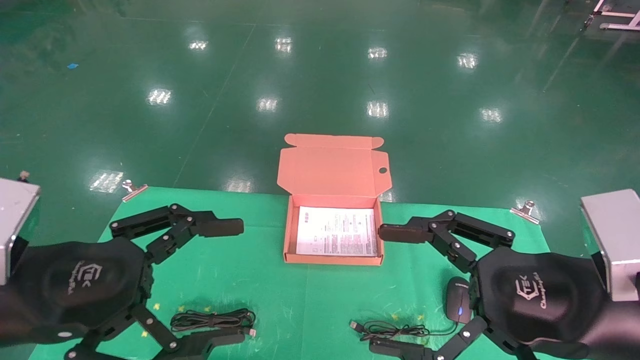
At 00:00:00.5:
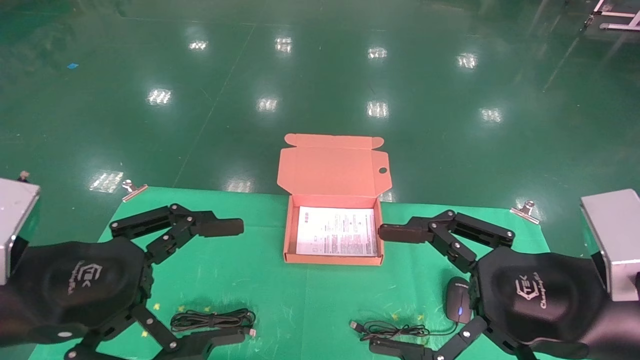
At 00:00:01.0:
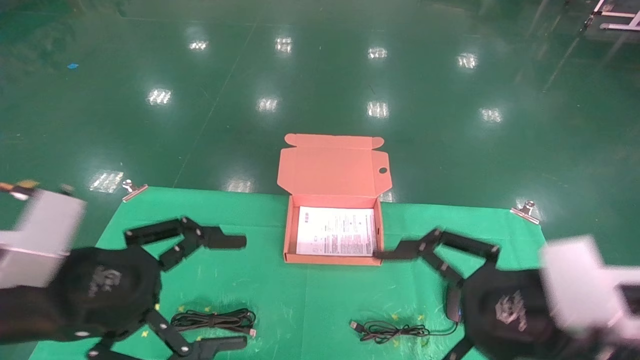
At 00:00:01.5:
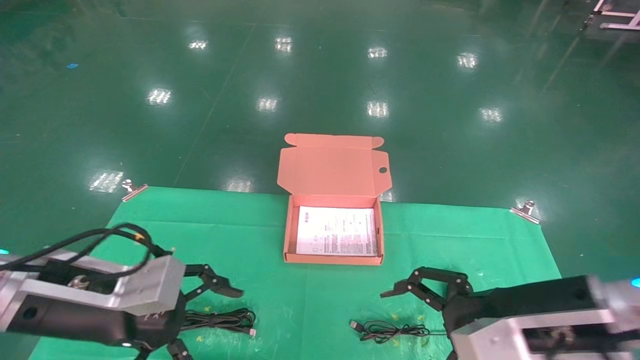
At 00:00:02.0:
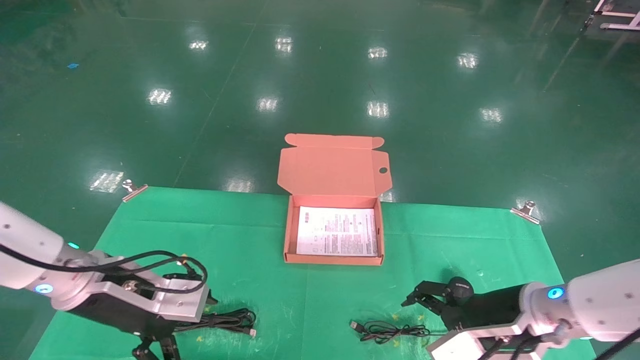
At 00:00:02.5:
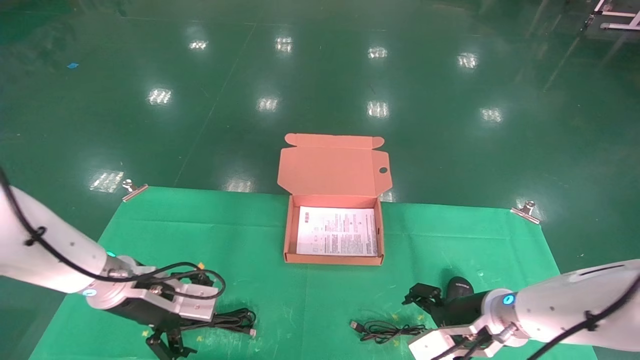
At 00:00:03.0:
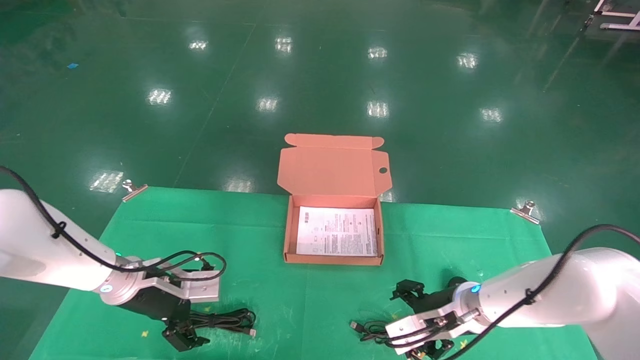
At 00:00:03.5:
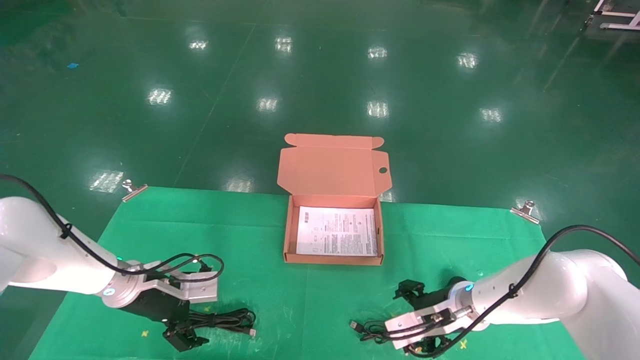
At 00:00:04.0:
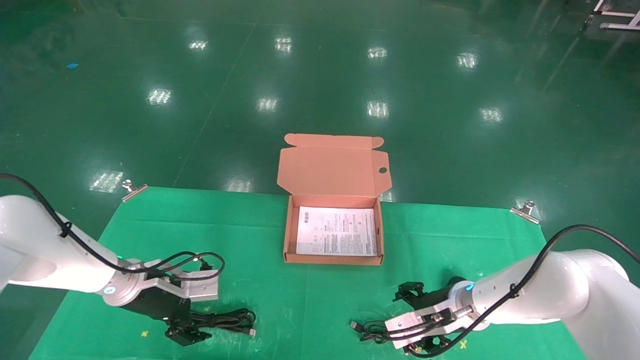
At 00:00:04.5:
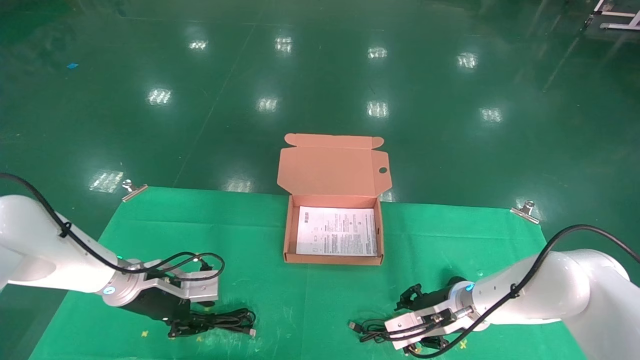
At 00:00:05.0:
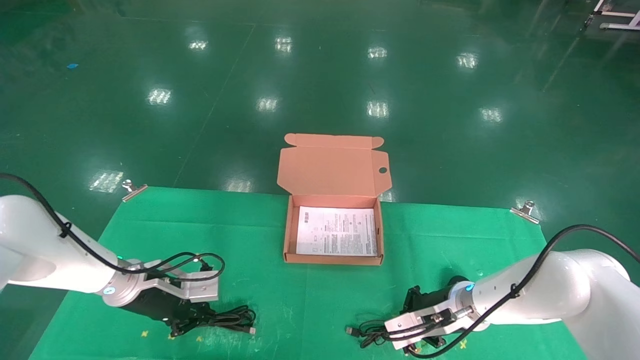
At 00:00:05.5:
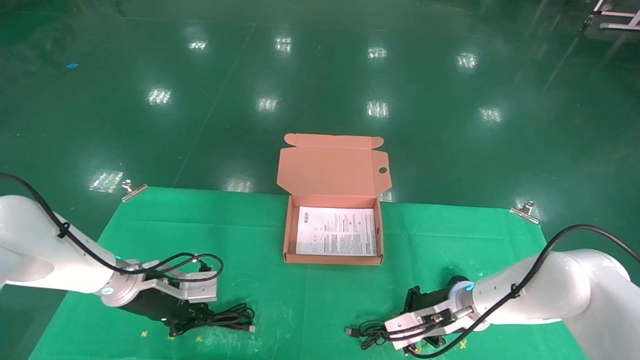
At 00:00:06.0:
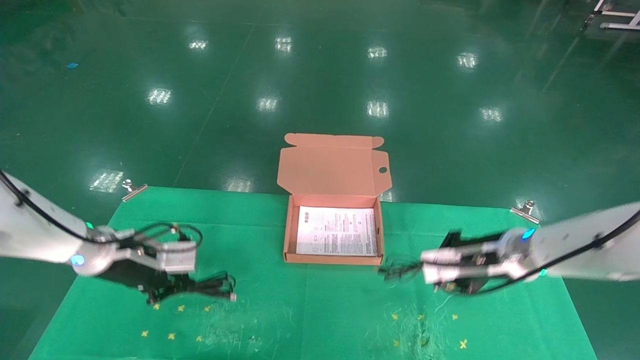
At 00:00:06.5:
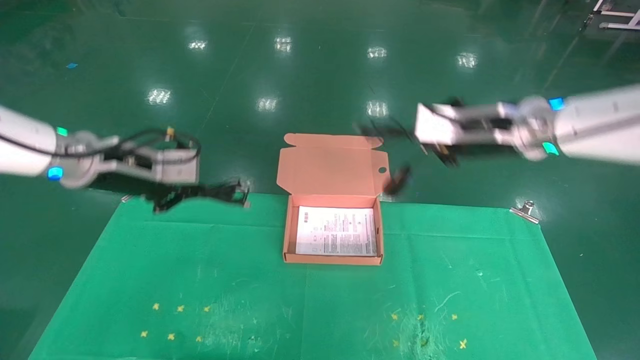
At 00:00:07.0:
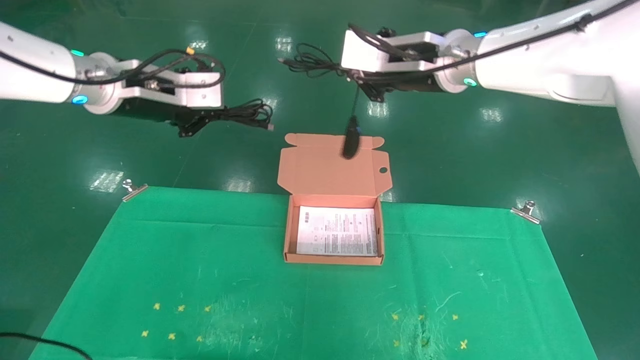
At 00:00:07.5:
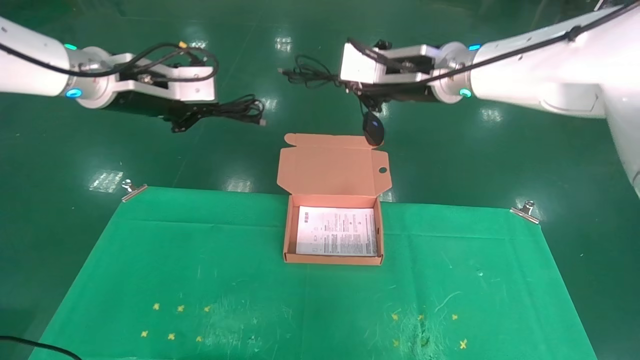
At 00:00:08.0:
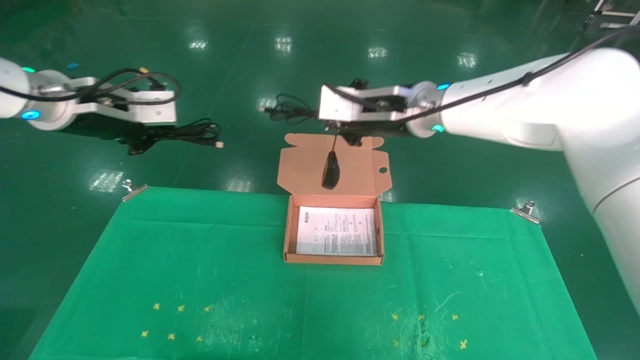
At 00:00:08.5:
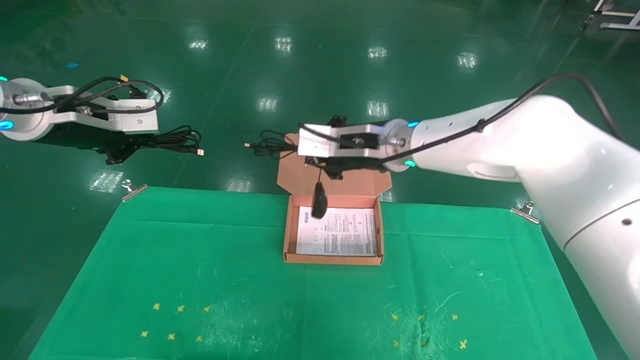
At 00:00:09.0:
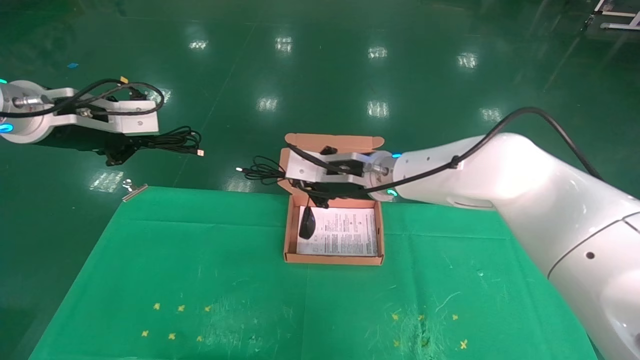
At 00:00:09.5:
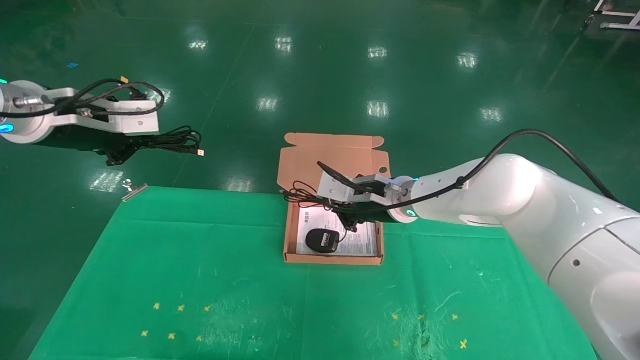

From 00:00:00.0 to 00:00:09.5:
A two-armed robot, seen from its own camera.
Task of the whole recording: grasp data cable left put into box grasp mouse right put into box.
Step, from 00:00:01.0 to 00:00:05.5: Grab and pick up both the mouse and power cord from the accessory packaging area at the same time.
From 00:00:00.0 to 00:00:02.0: The grippers both shift forward and downward by about 15 cm.
From 00:00:02.0 to 00:00:04.0: The grippers both shift forward and downward by approximately 10 cm.
From 00:00:04.0 to 00:00:05.5: The left gripper closes its fingers; the right gripper closes.
From 00:00:05.5 to 00:00:07.5: The two grippers go approximately 30 cm upward.
From 00:00:07.5 to 00:00:09.5: The left gripper goes some 5 cm to the left, while the right gripper is displaced downward by about 20 cm.

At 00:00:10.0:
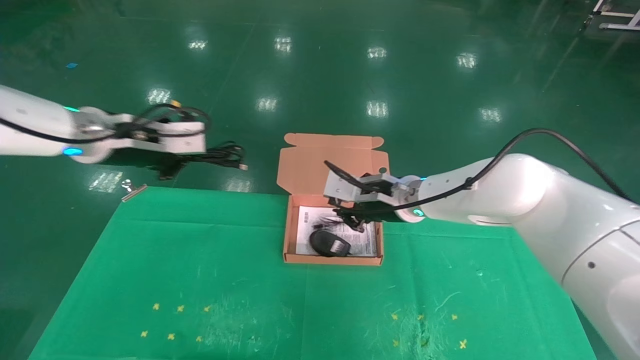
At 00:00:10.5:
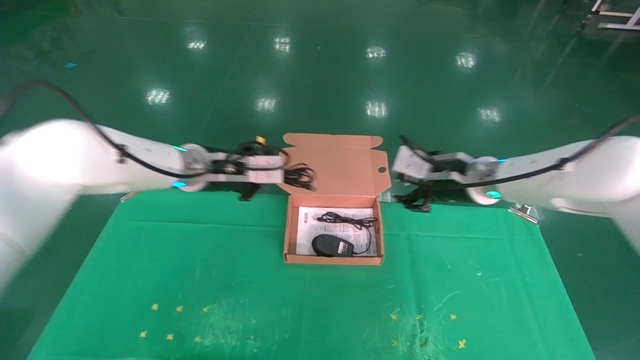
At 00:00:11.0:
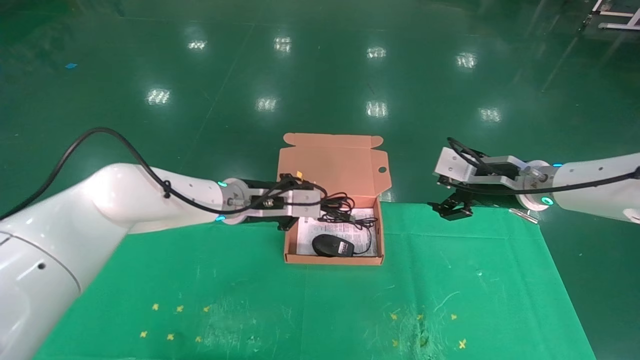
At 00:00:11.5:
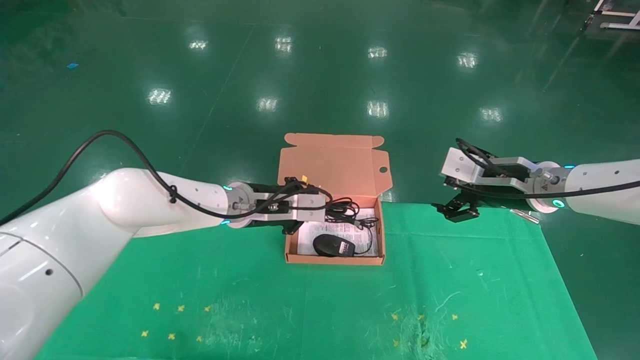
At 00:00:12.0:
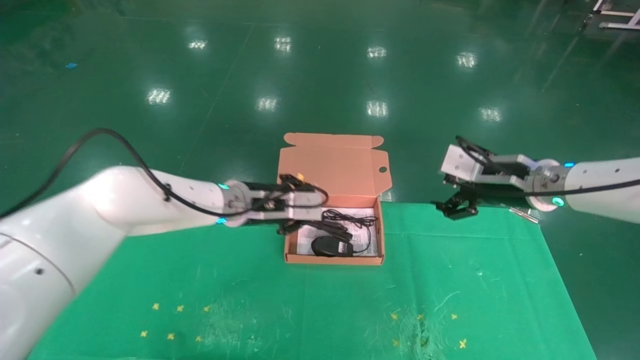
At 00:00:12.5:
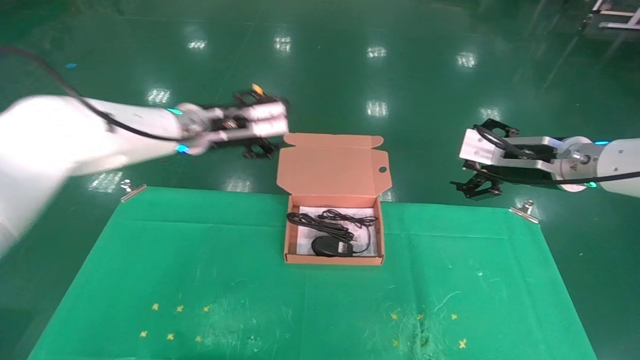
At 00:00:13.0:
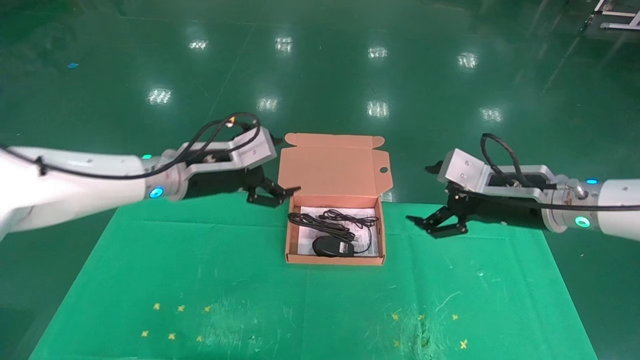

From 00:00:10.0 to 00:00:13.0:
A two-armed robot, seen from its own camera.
Task of the whole recording: grasp data cable left put into box grasp mouse right put into box.
From 00:00:10.0 to 00:00:11.5: The right gripper goes roughly 15 cm to the right, and opens up. The left gripper moves to the right and downward, about 20 cm.
From 00:00:11.5 to 00:00:13.0: The right gripper goes roughly 5 cm backward; the left gripper heads to the left and upward, covering some 10 cm, and opens its fingers.

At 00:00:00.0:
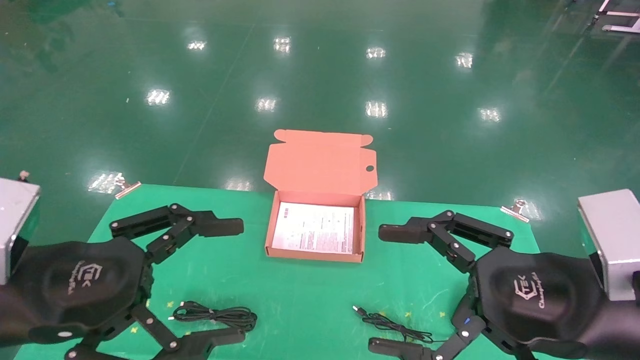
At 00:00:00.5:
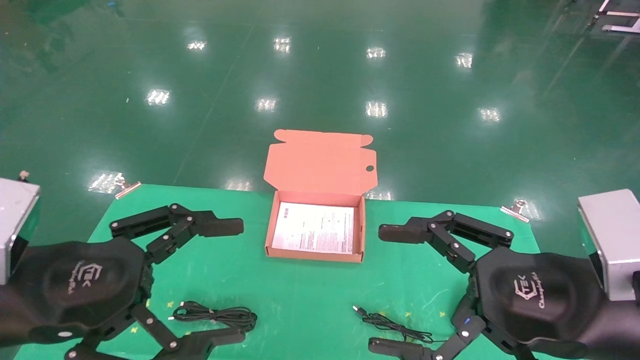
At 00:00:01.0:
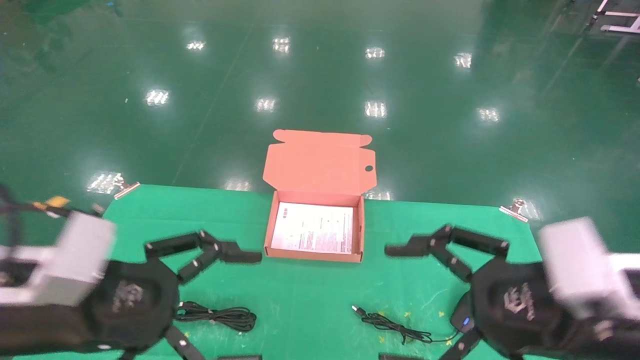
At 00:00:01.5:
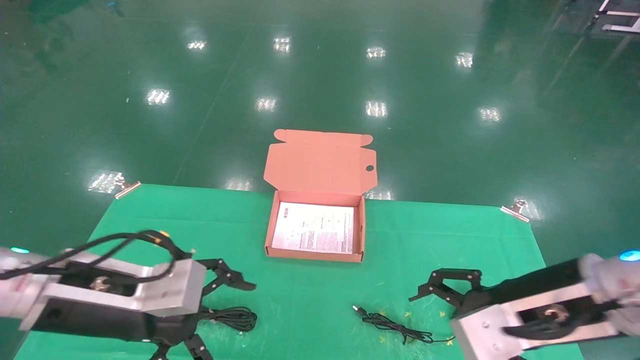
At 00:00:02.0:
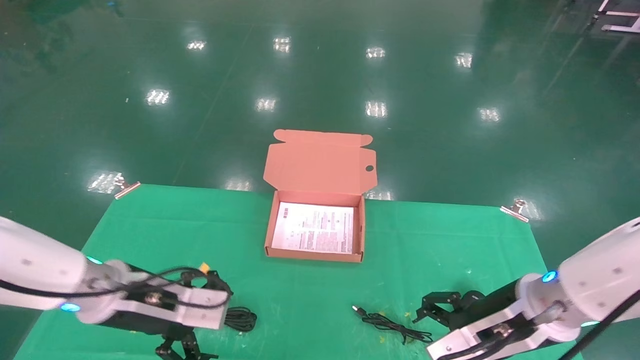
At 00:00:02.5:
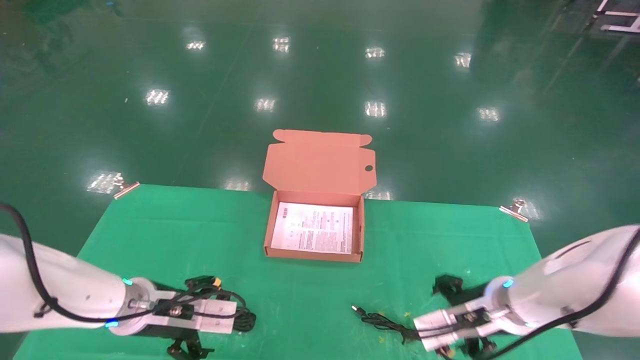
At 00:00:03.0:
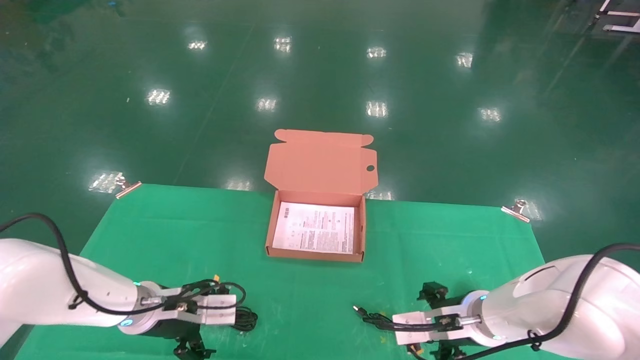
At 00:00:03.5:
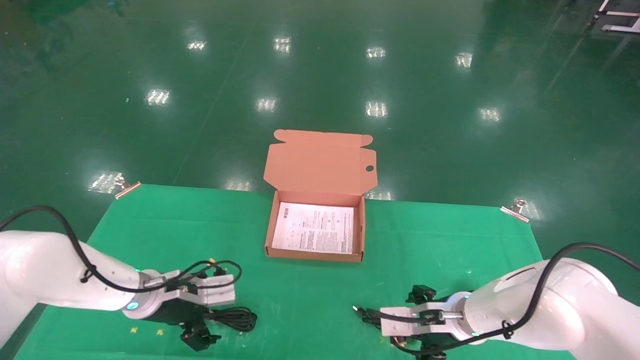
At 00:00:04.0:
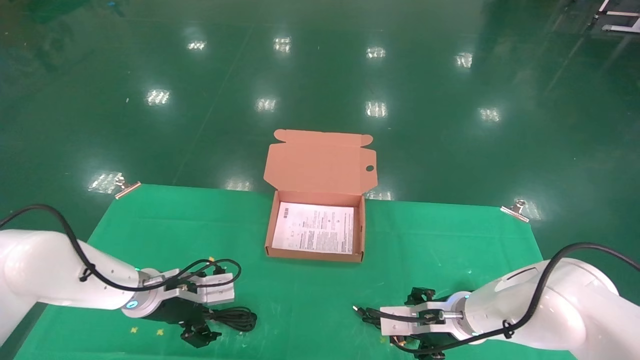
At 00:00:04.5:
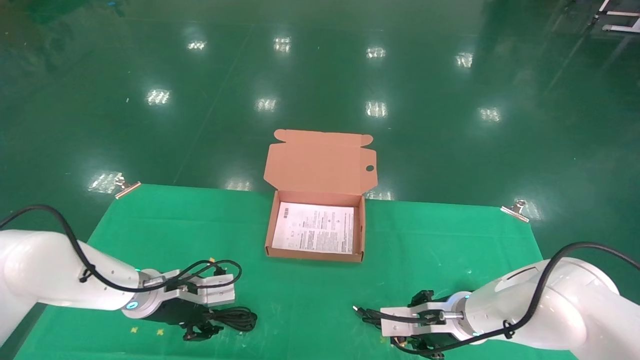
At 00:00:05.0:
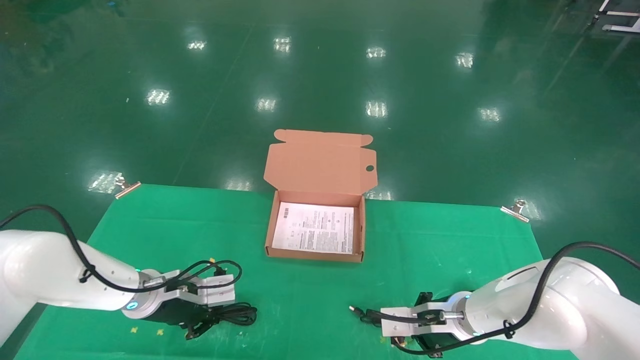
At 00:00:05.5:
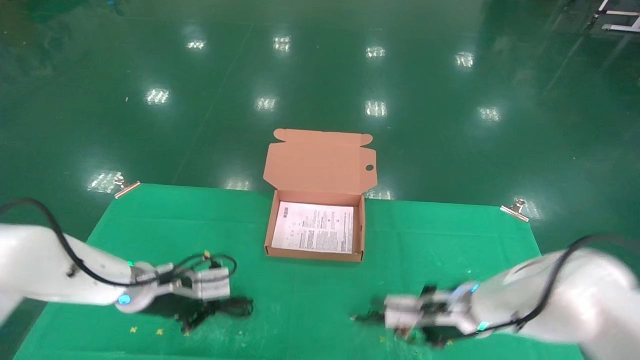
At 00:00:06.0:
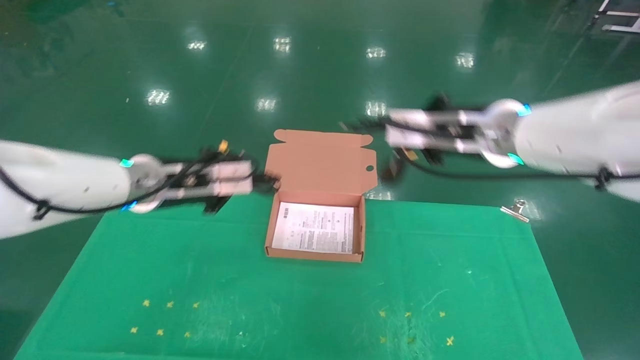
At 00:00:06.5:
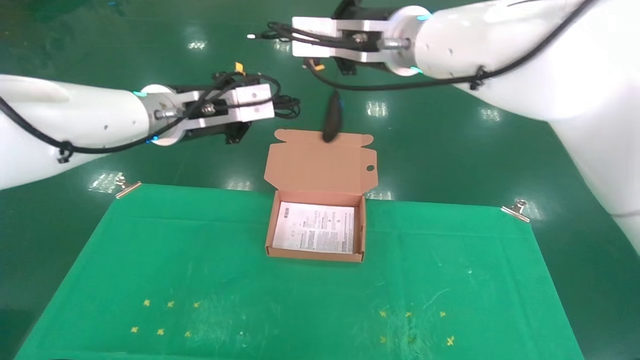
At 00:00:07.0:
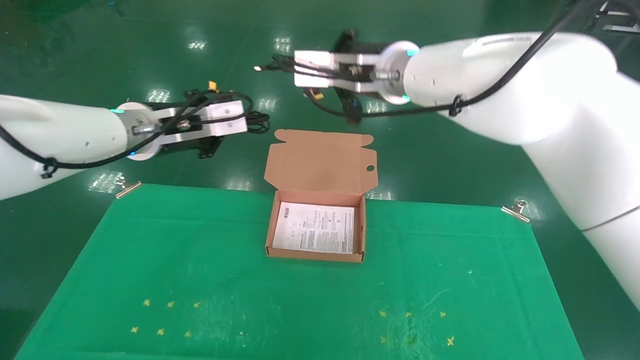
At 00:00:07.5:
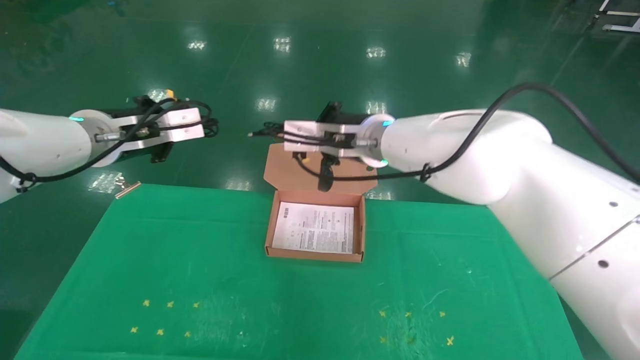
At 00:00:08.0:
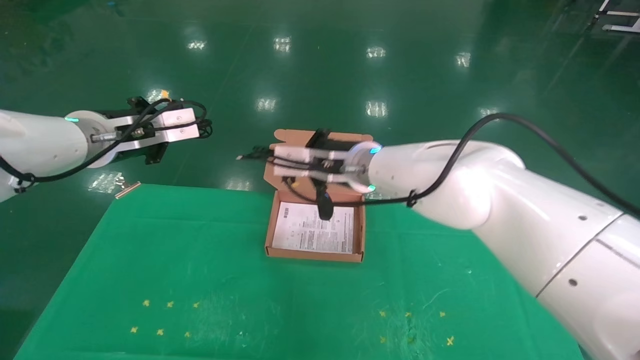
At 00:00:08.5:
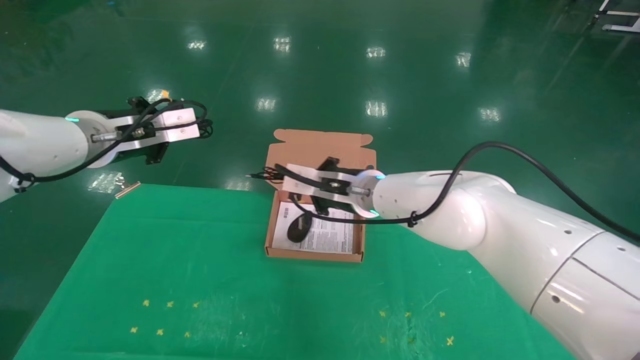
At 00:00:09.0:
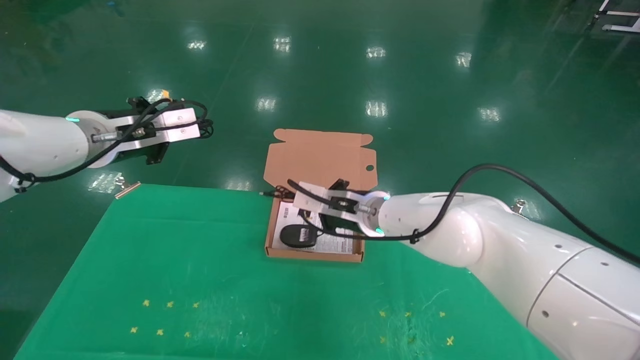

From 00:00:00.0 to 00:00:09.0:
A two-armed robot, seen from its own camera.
Task of the whole recording: grasp data cable left put into box grasp mouse right put into box.
Step, from 00:00:01.0 to 00:00:05.5: Grab and pick up both the mouse and power cord from the accessory packaging area at the same time.
From 00:00:00.0 to 00:00:02.0: Both grippers move forward and downward, approximately 15 cm.
From 00:00:02.0 to 00:00:04.5: The right gripper heads downward and forward, covering approximately 15 cm, and closes, while the left gripper moves forward and downward, about 15 cm, and closes up.
From 00:00:04.5 to 00:00:07.0: Both grippers travel together upward, roughly 30 cm. The left gripper closes its fingers. The right gripper closes.
From 00:00:07.0 to 00:00:09.0: The left gripper moves to the left, some 5 cm; the right gripper is displaced downward by roughly 20 cm.
